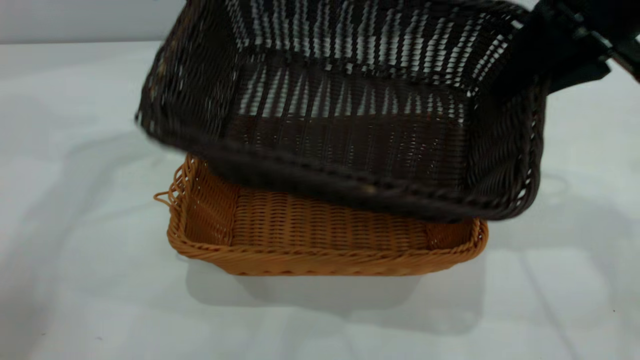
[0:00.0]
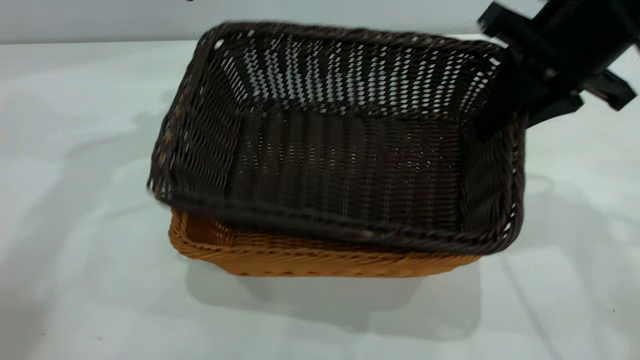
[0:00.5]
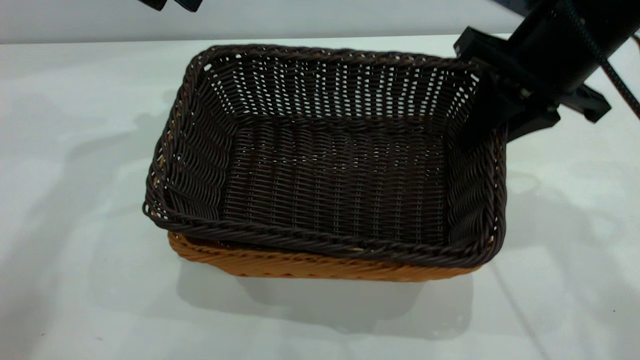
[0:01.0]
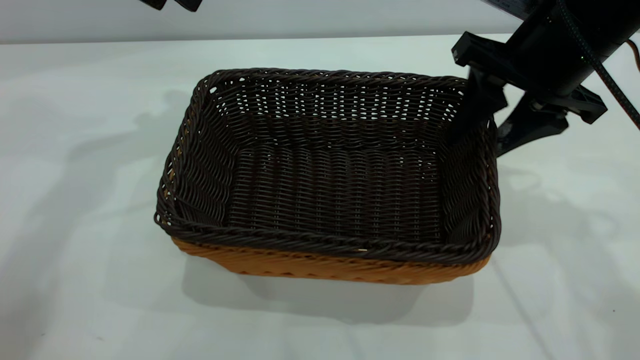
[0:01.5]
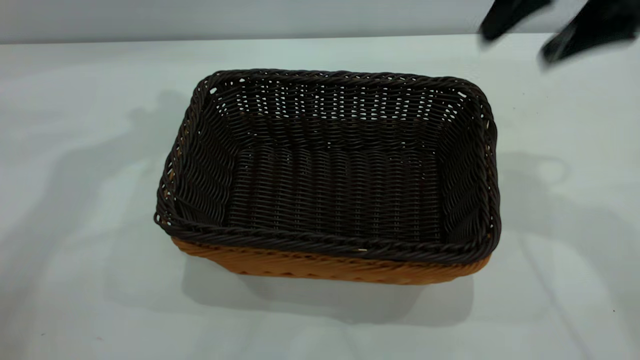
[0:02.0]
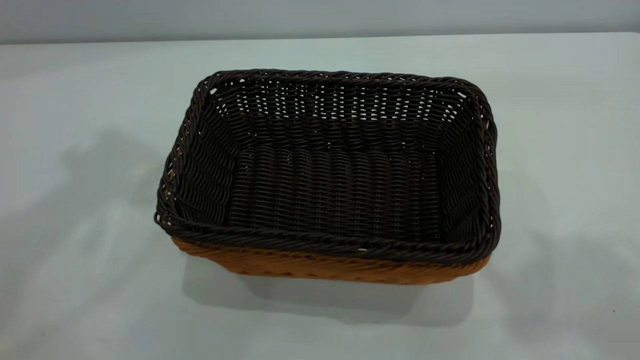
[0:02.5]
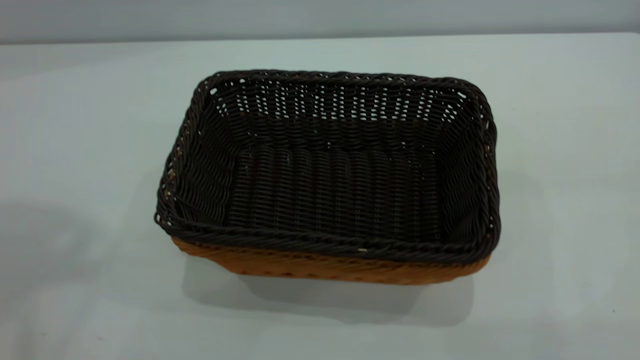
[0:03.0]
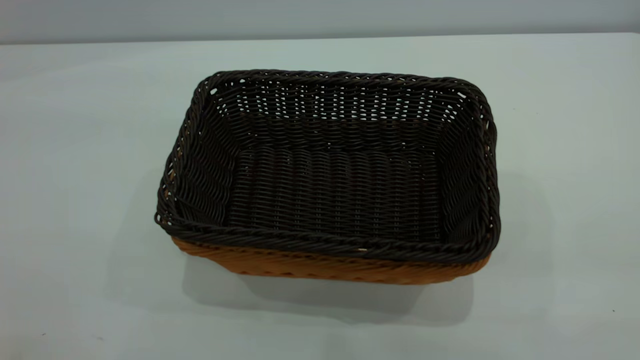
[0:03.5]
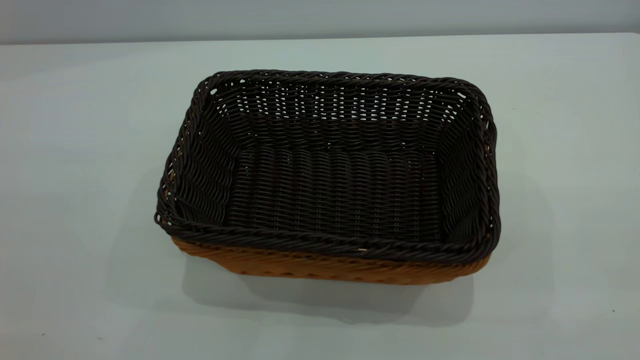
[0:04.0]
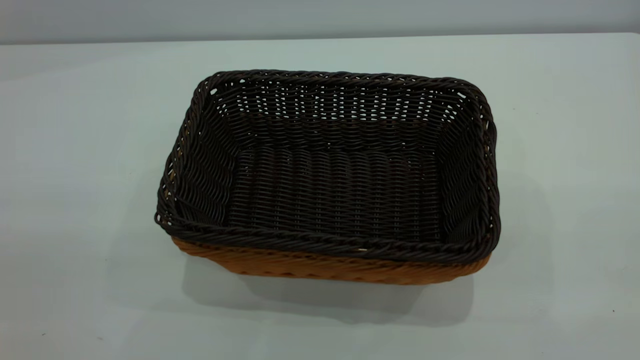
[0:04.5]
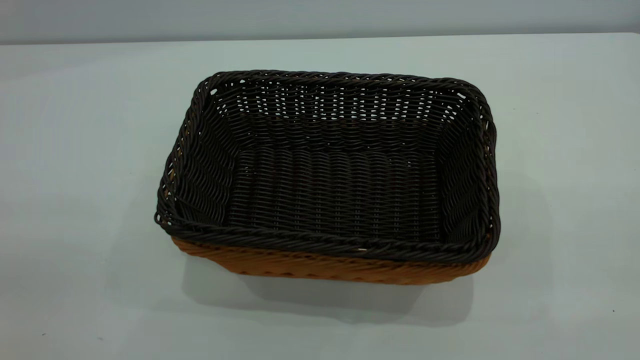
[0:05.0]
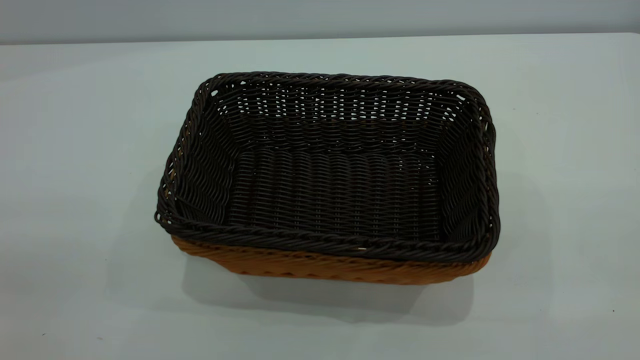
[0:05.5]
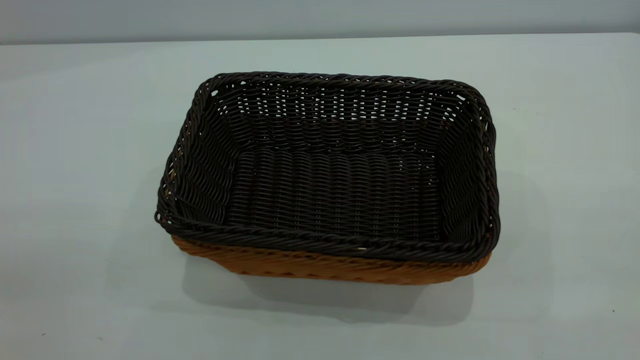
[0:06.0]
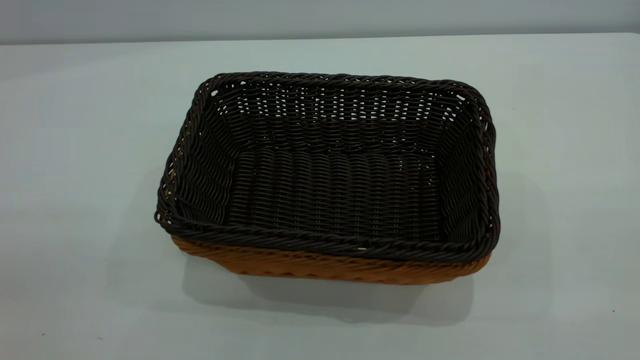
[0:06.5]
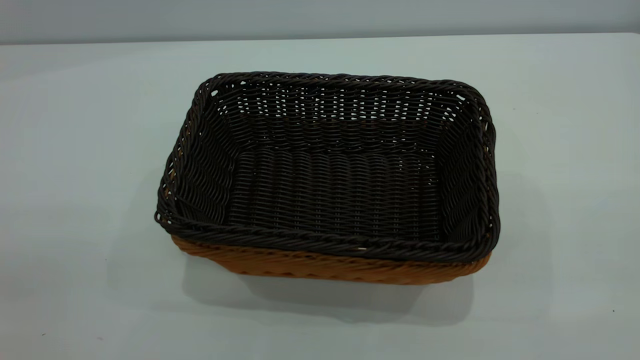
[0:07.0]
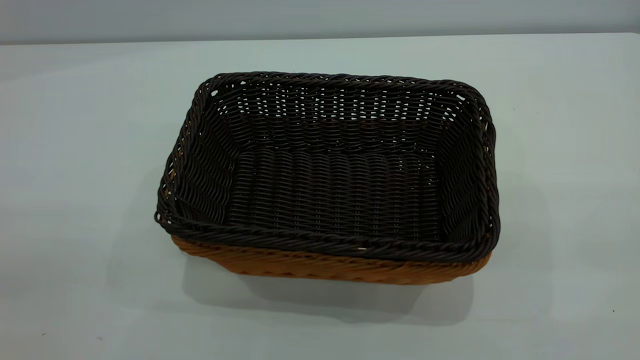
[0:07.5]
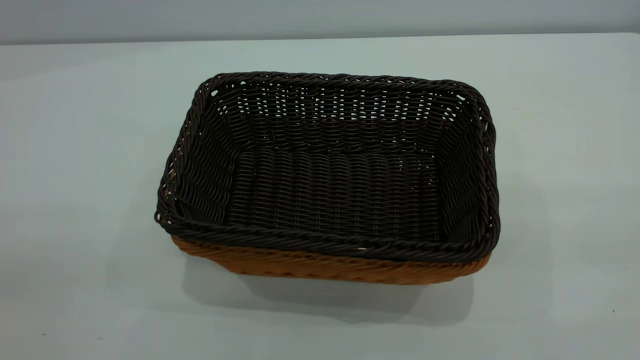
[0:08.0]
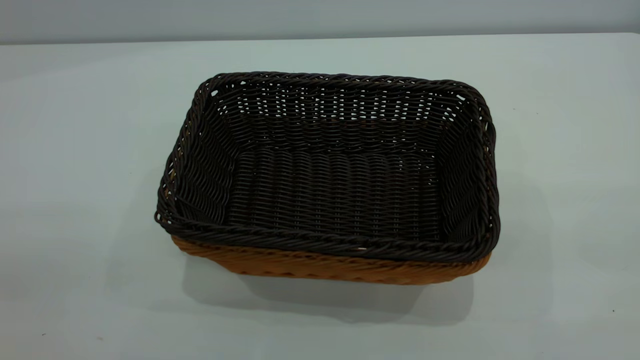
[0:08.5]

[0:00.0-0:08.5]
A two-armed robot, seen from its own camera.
Task of the whole recording: the left gripper grasp the brown basket and place it in the center of the table, the right gripper grasp the black basket and place it inside the brown one.
Step, 0:00.0 to 0:01.5: Place the dark basket on top of the light basket.
0:00.0 to 0:02.0: The right gripper goes roughly 5 cm upward, and opens, while the left gripper shifts roughly 10 cm upward.
0:02.0 to 0:04.0: The two grippers go roughly 40 cm backward.
0:04.0 to 0:06.5: The left gripper shifts some 10 cm downward.
